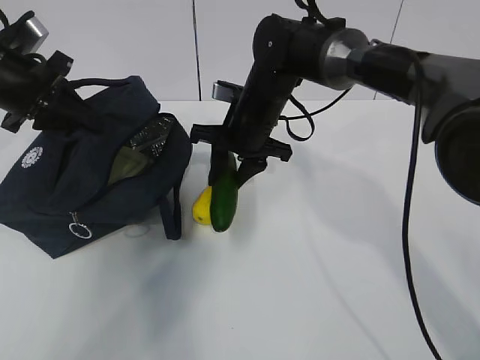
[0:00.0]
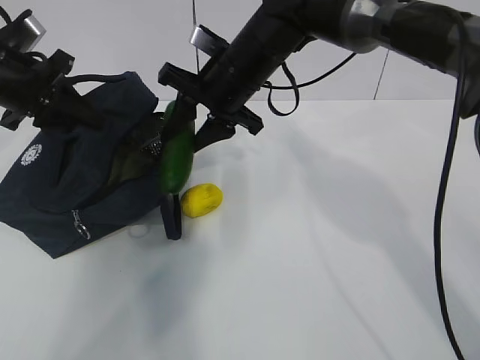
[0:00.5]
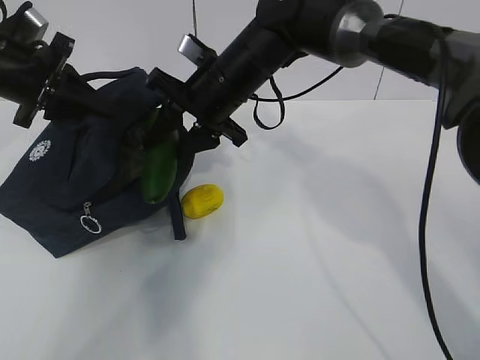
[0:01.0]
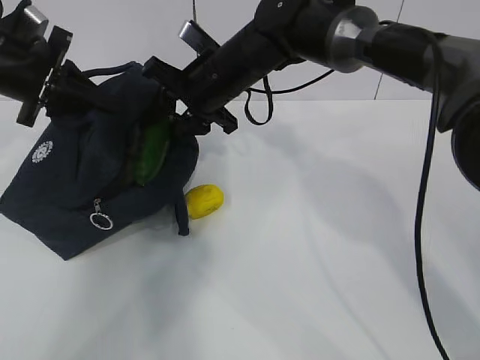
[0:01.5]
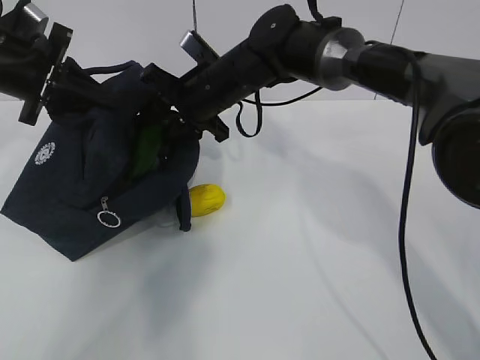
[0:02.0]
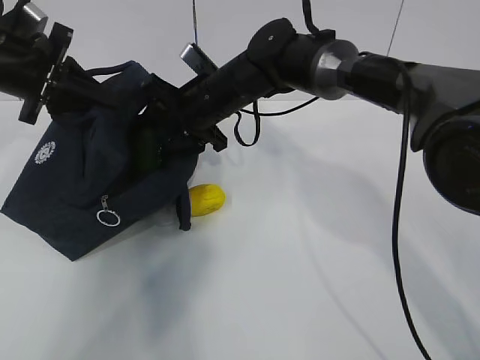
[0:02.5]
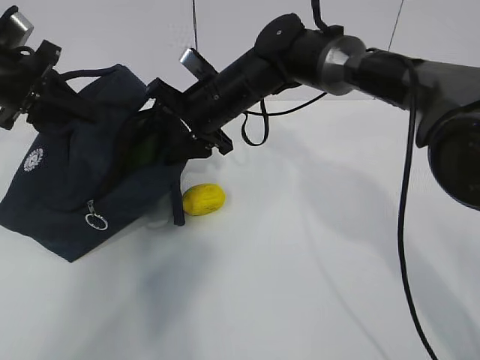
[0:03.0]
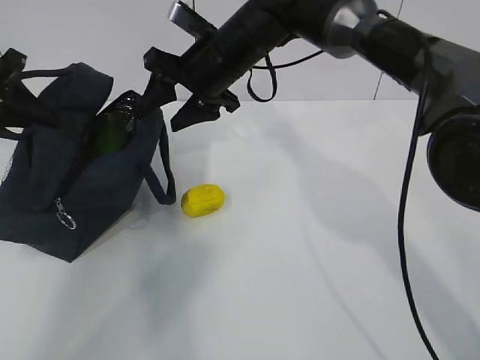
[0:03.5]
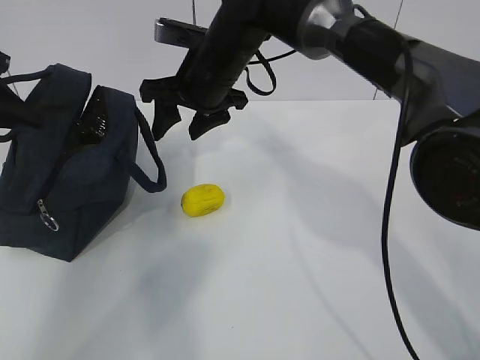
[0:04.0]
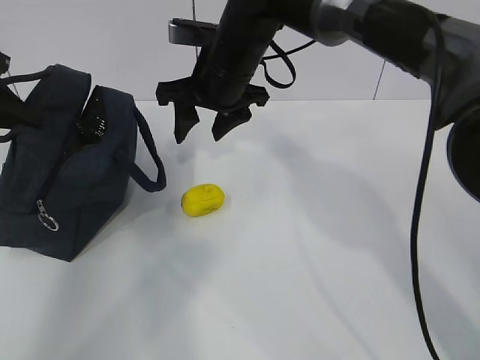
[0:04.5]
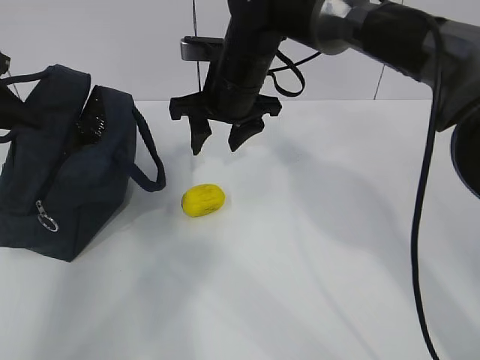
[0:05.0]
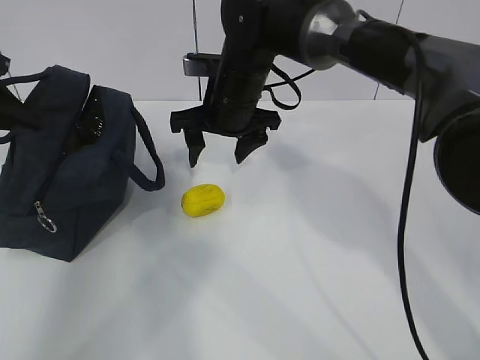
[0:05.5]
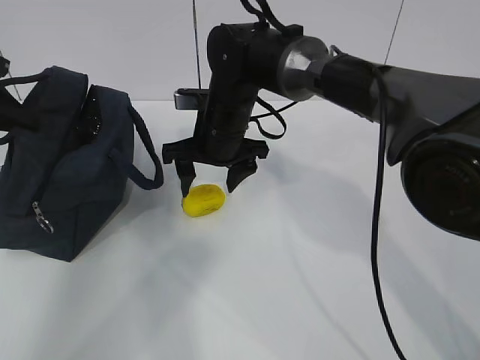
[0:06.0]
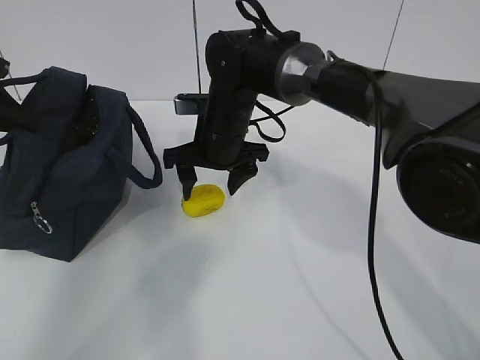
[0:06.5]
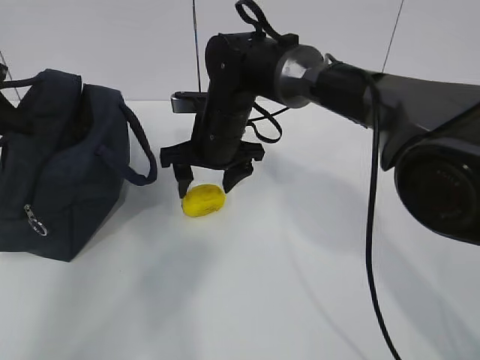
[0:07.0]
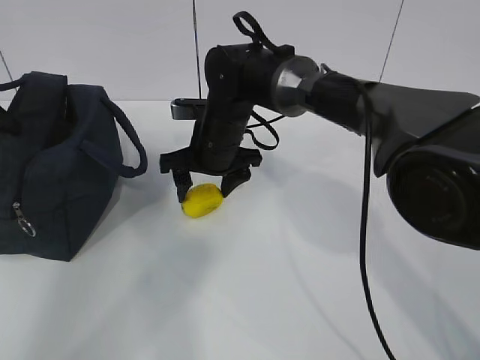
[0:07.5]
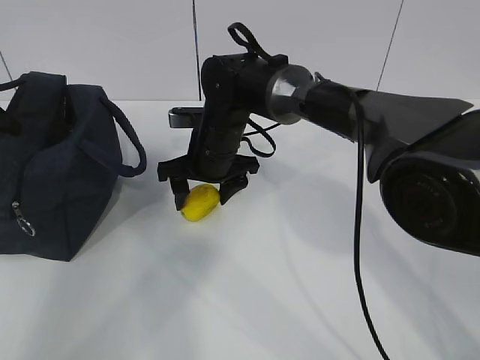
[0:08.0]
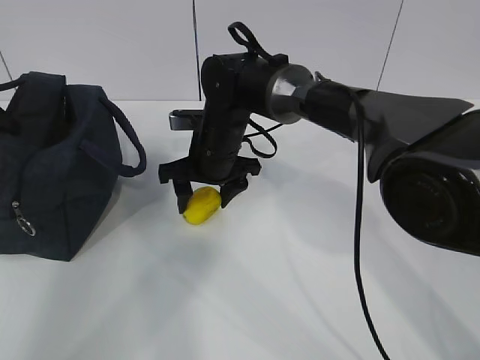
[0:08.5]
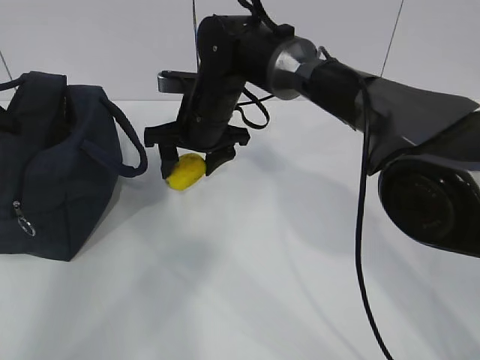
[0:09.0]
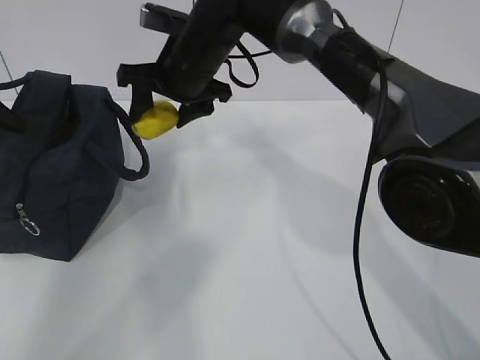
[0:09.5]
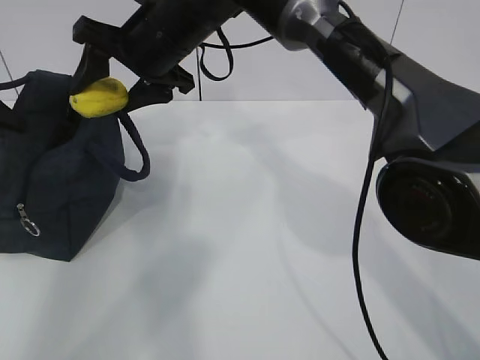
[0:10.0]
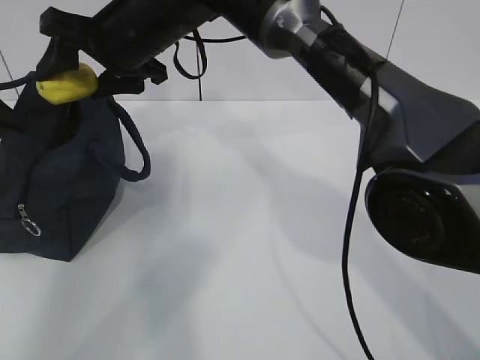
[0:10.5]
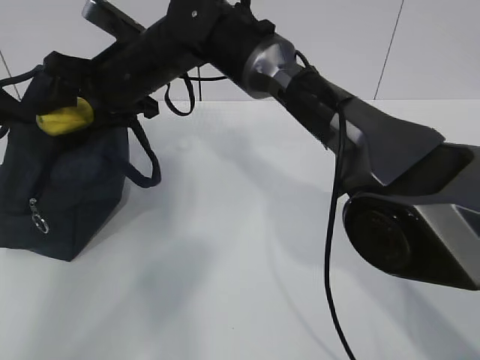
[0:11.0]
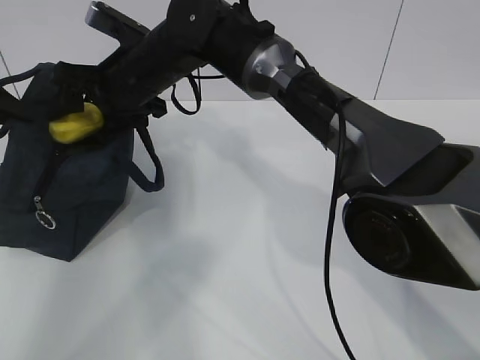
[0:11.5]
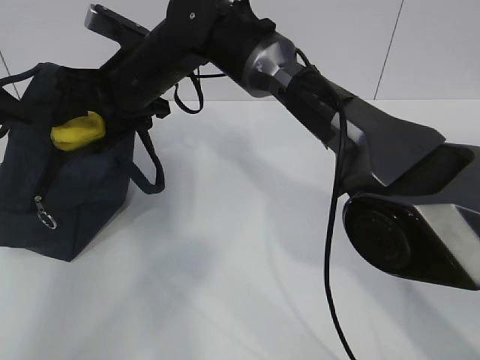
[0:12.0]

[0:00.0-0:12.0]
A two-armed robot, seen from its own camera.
Step, 0:01.5 to 0:05.0: Secure the lunch bag with your left hand.
Step, 0:05.5 to 0:07.0: Grab the lunch bag with your right hand.
0:00.0 to 0:02.0: The right gripper shifts by some 5 cm.
0:02.0 to 0:04.0: The left gripper is displaced to the left by some 10 cm.
0:04.0 to 0:06.0: The right gripper shifts approximately 5 cm downward.
0:08.0 to 0:10.0: The right gripper moves upward, approximately 15 cm.
0:10.0 to 0:12.0: The right gripper changes place by approximately 5 cm.

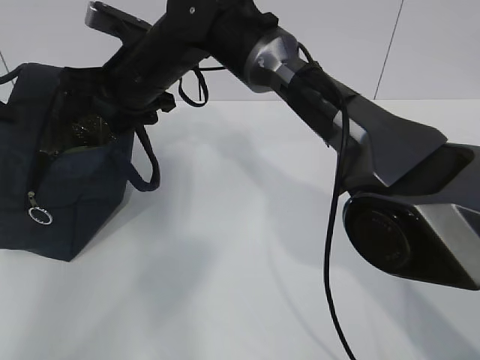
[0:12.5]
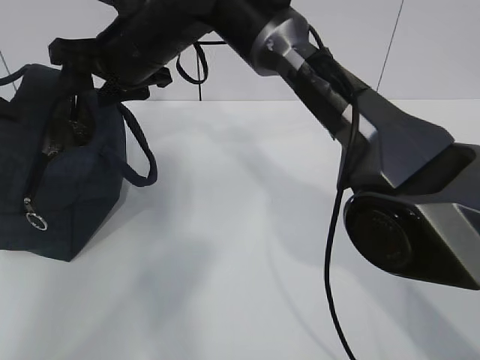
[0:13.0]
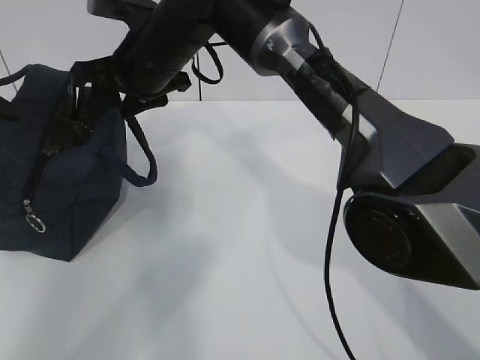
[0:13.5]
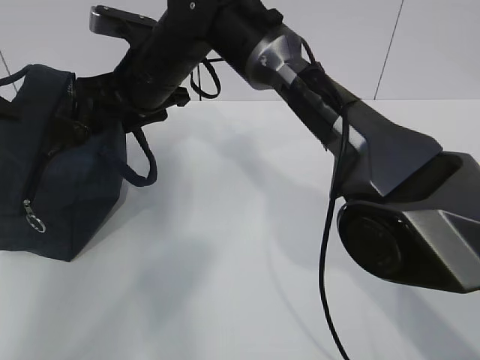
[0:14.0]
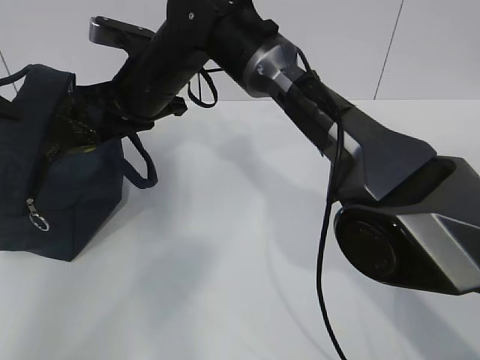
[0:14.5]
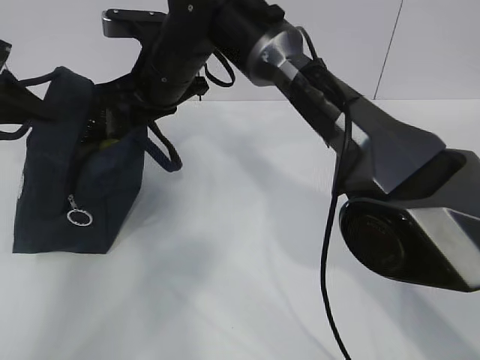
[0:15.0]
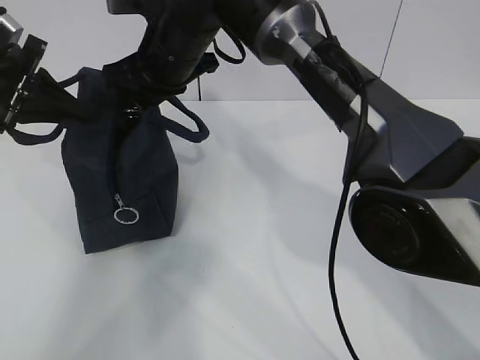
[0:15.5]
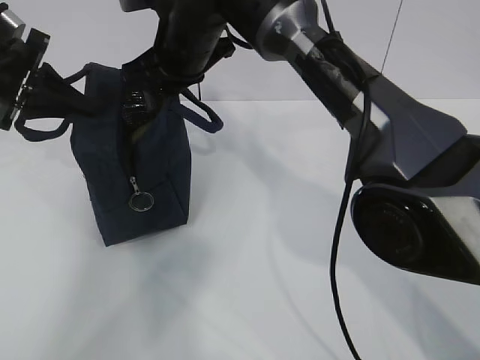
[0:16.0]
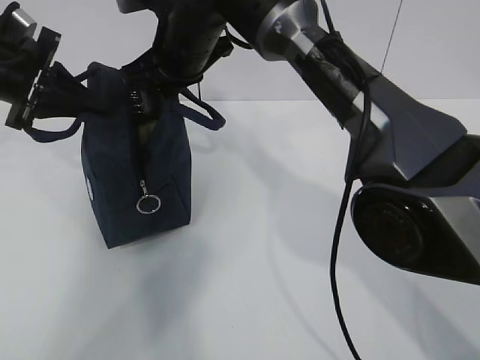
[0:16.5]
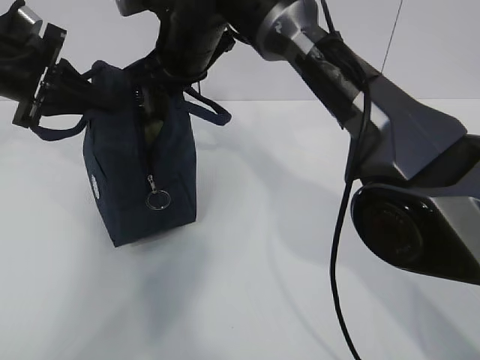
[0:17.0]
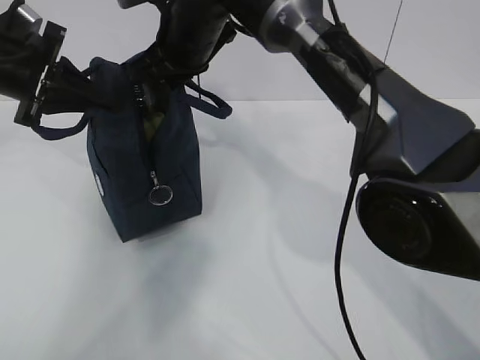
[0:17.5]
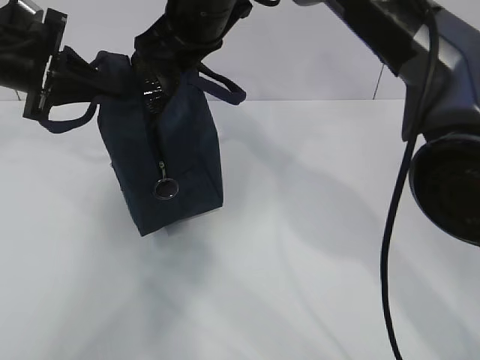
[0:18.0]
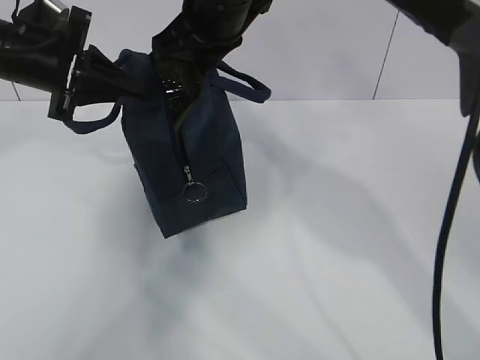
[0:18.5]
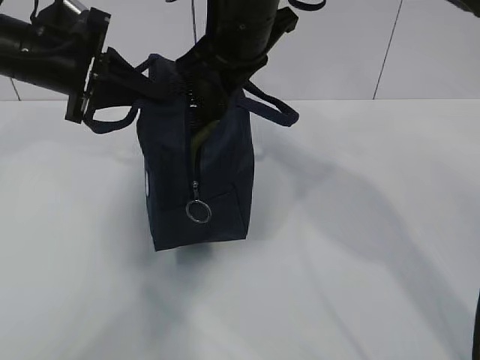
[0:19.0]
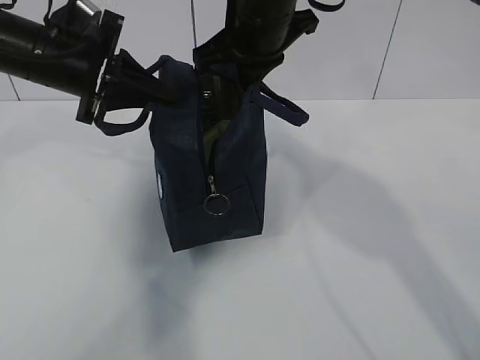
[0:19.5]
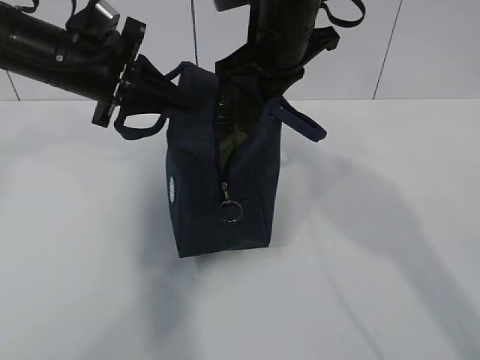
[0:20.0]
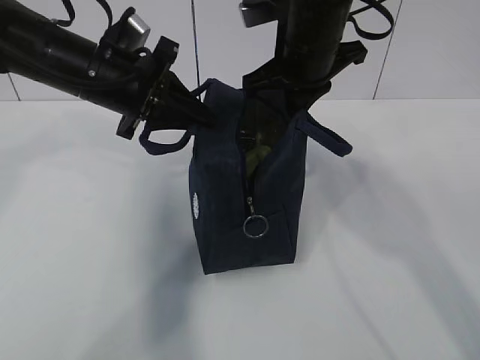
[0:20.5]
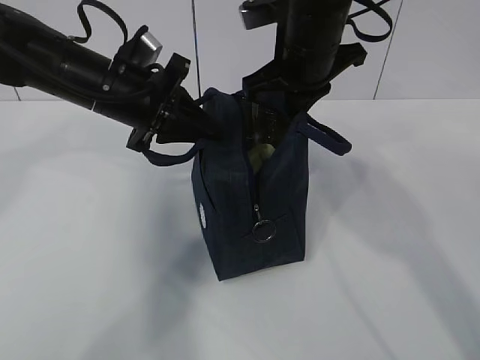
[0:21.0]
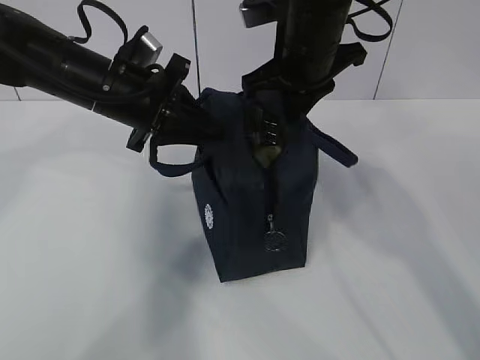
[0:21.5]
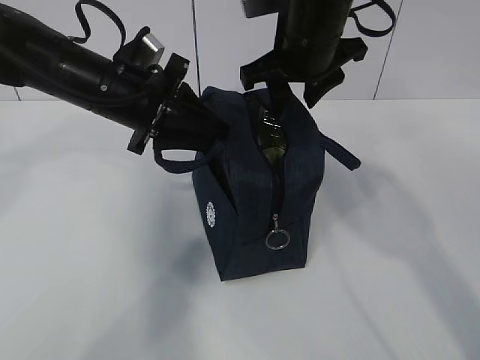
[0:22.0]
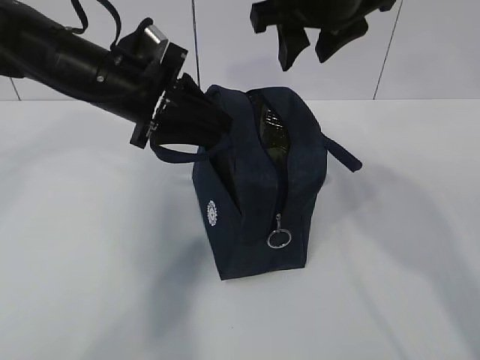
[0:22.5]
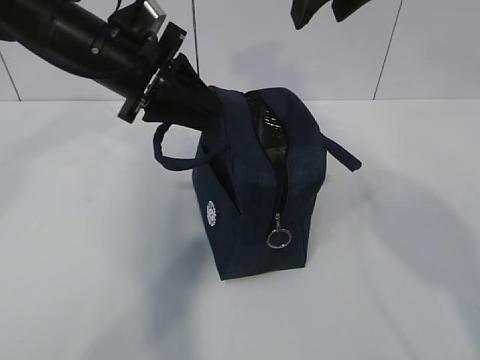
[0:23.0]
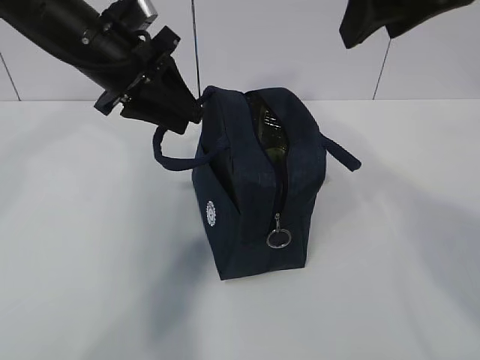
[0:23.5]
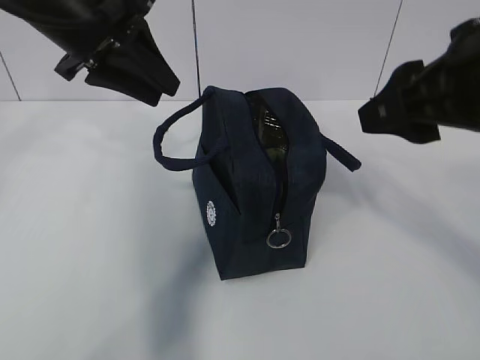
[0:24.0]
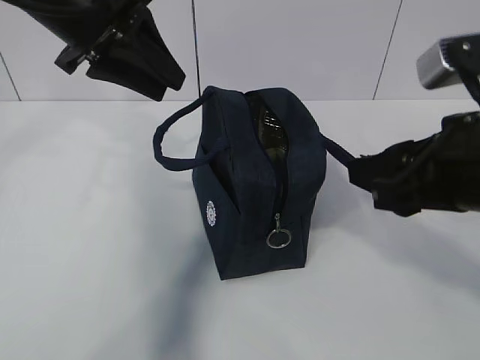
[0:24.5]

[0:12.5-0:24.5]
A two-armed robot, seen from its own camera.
0:12.5 to 0:14.5: The right gripper closes up.
0:14.5 to 0:16.5: The right gripper changes place by some 5 cm, while the left gripper is displaced to the right by roughly 10 cm.
0:16.5 to 0:18.5: The right gripper heads upward, covering about 5 cm.
0:18.5 to 0:20.5: Both grippers travel together to the right, approximately 10 cm.
0:20.5 to 0:22.5: The right gripper shifts about 5 cm upward, and opens up. Meanwhile the left gripper opens its fingers.
0:22.5 to 0:24.5: The right gripper shifts some 20 cm backward, to the right and downward, while the left gripper is displaced upward by some 10 cm.

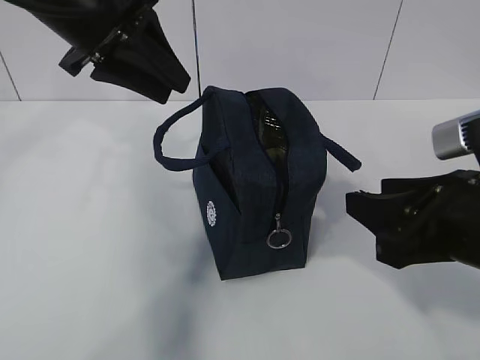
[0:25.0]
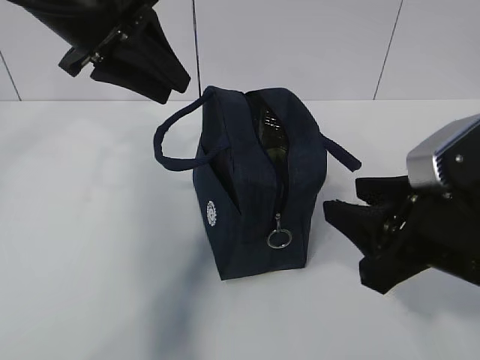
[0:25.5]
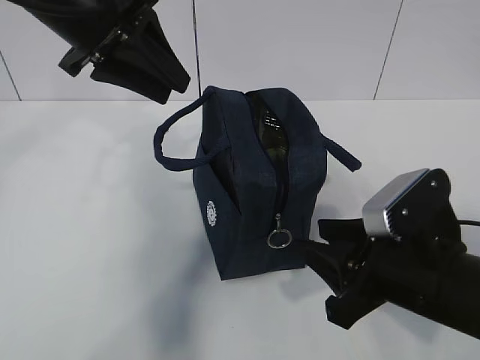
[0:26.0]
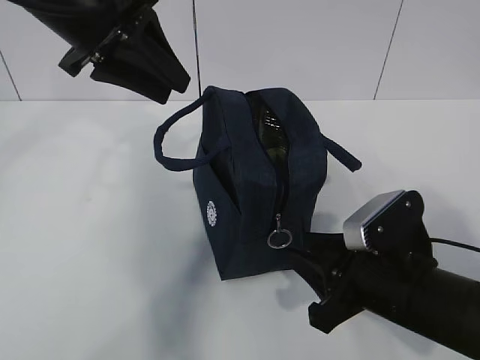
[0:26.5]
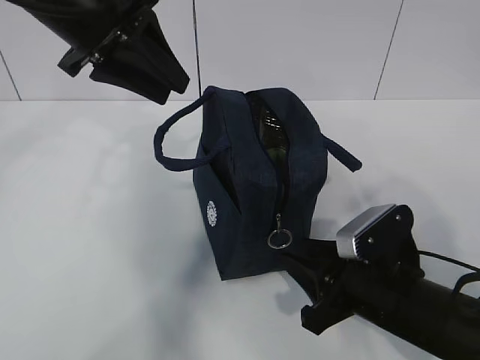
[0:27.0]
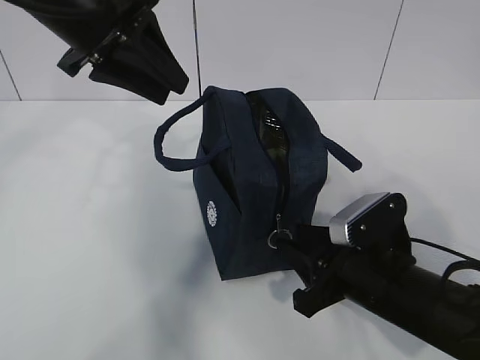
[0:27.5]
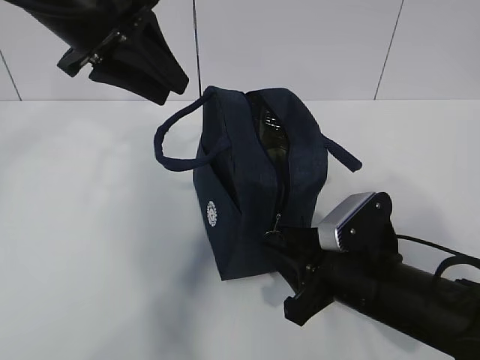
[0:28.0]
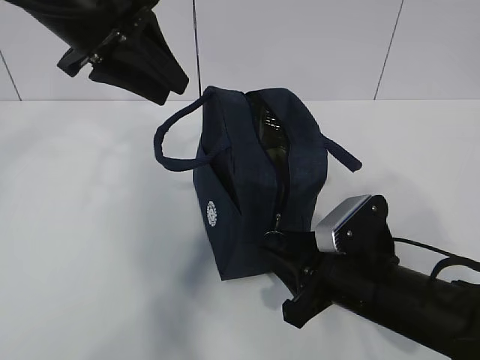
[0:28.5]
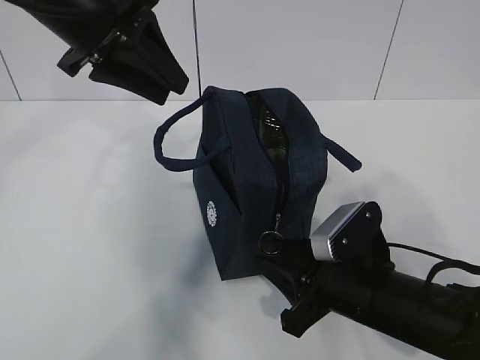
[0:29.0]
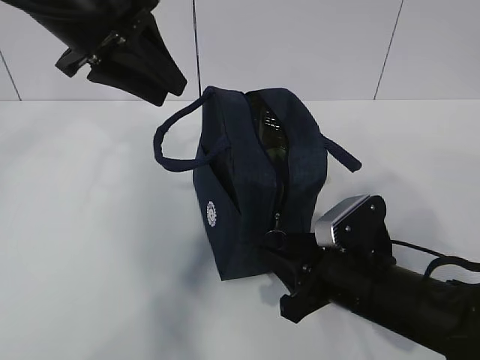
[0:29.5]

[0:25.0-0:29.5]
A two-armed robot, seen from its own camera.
0:25.0 to 0:27.0: The right gripper heads downward, covering some 15 cm.
0:27.0 to 0:29.5: The grippers stay close to where they were, moving slightly.
